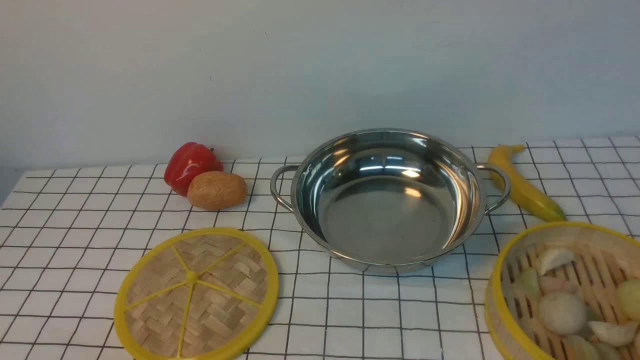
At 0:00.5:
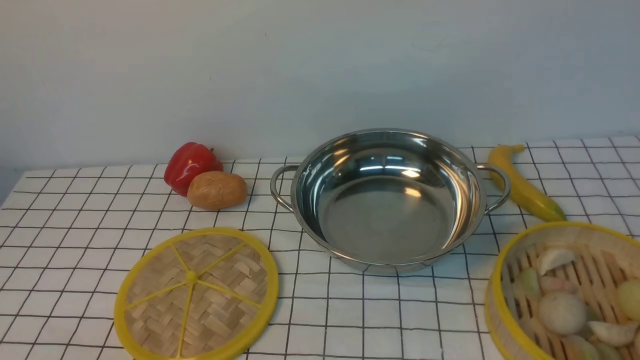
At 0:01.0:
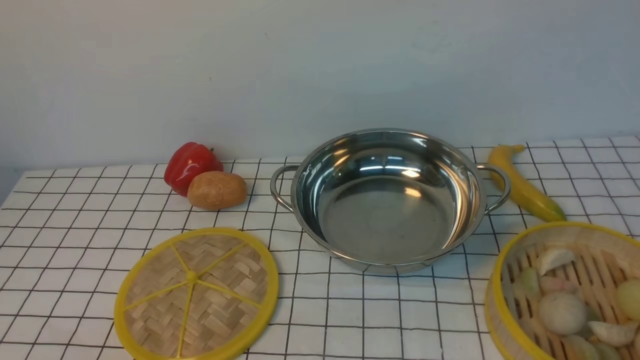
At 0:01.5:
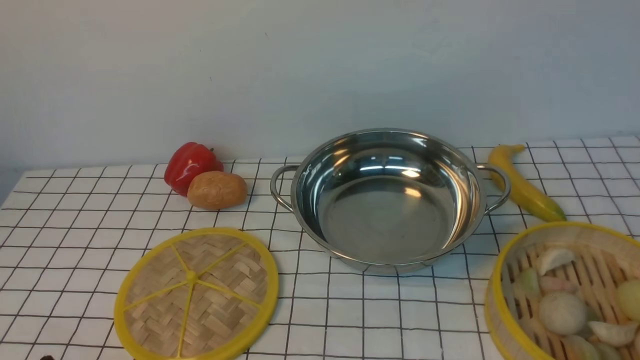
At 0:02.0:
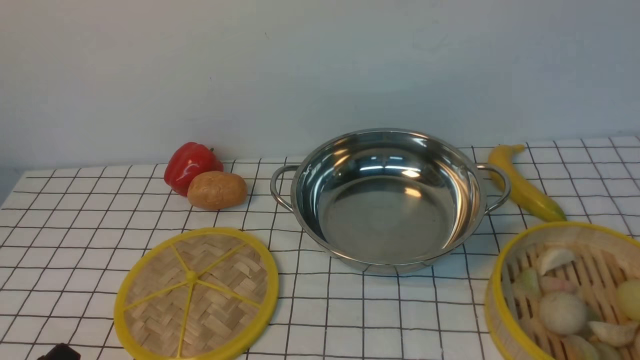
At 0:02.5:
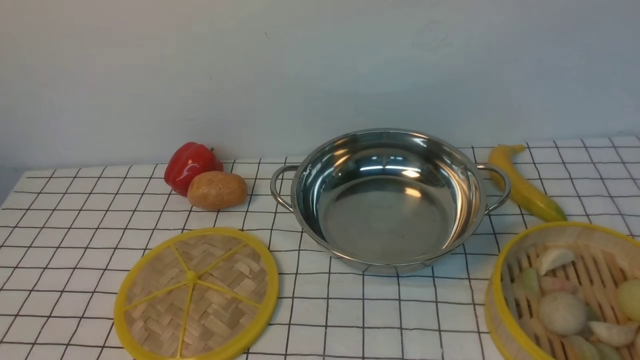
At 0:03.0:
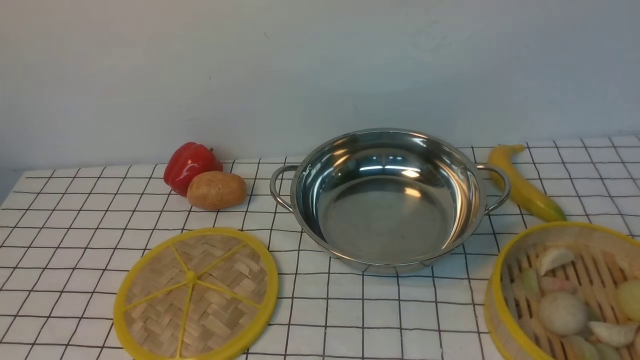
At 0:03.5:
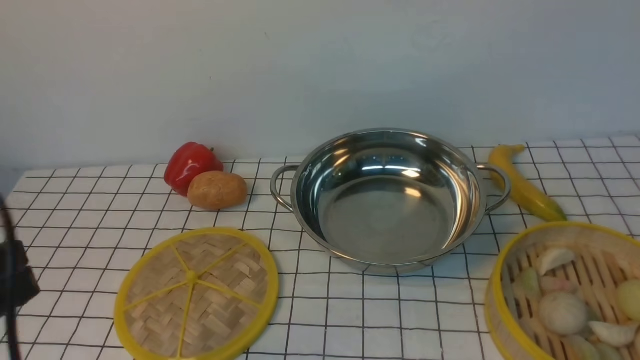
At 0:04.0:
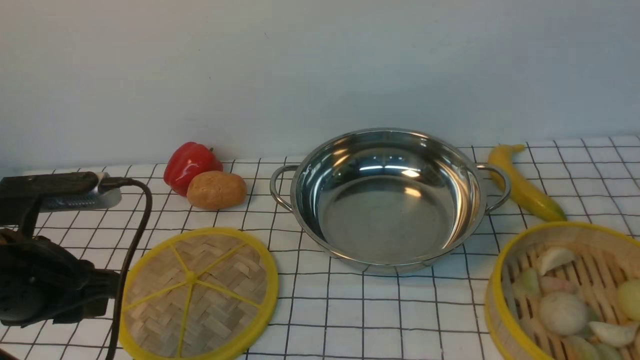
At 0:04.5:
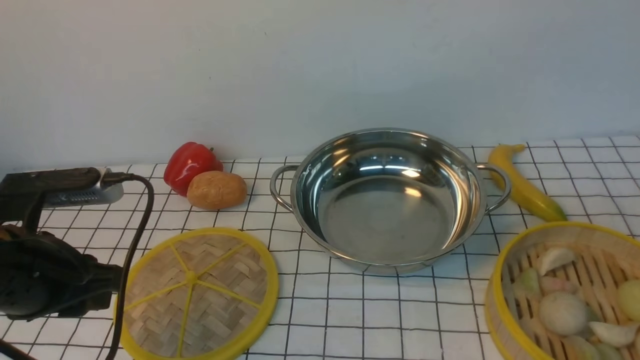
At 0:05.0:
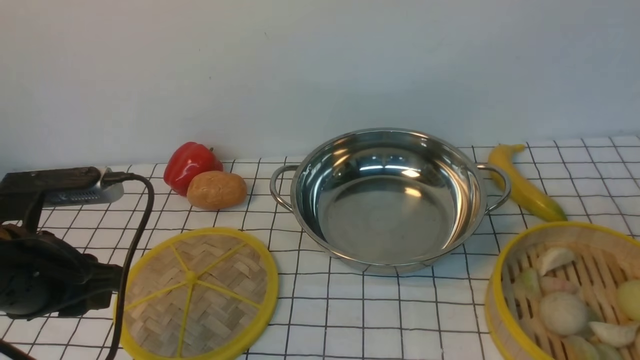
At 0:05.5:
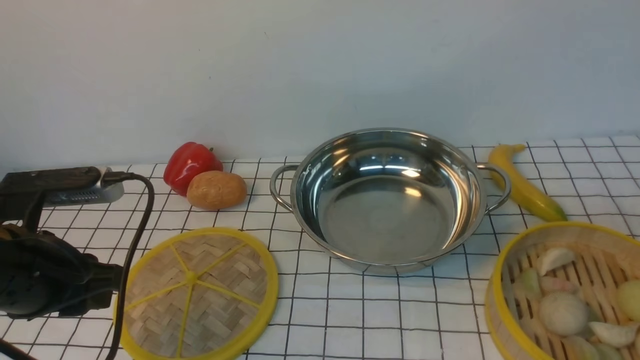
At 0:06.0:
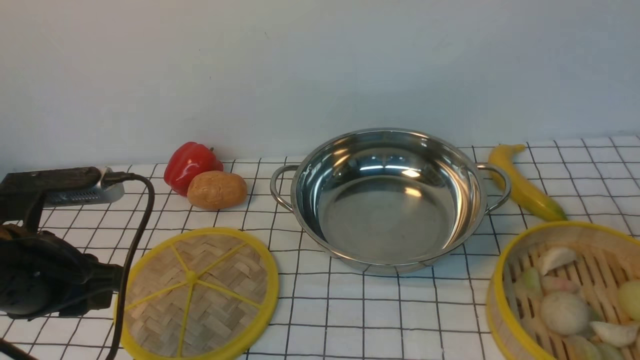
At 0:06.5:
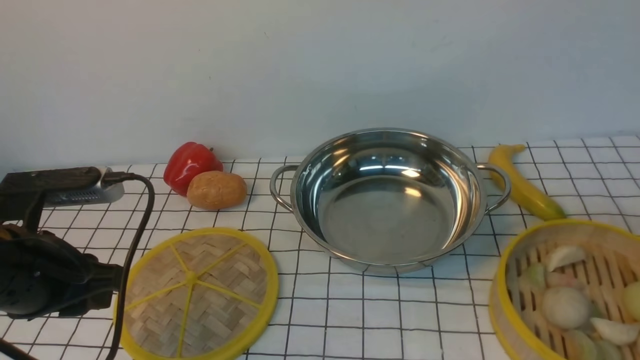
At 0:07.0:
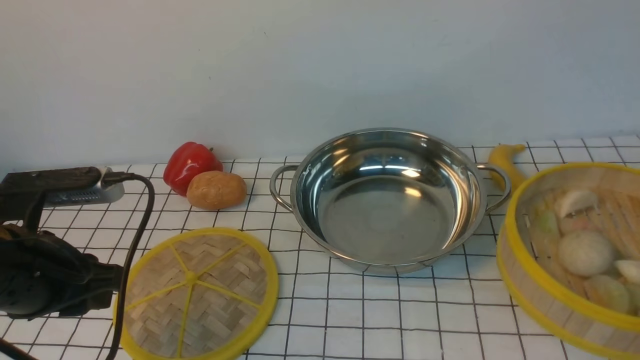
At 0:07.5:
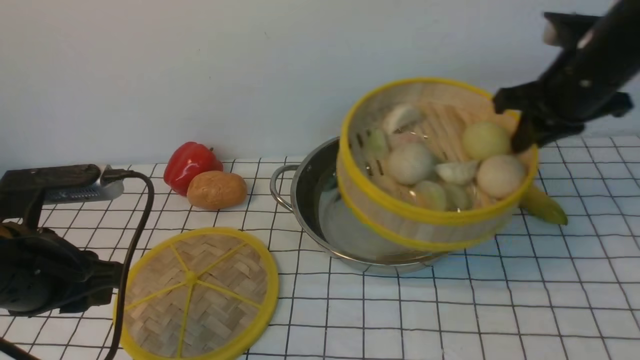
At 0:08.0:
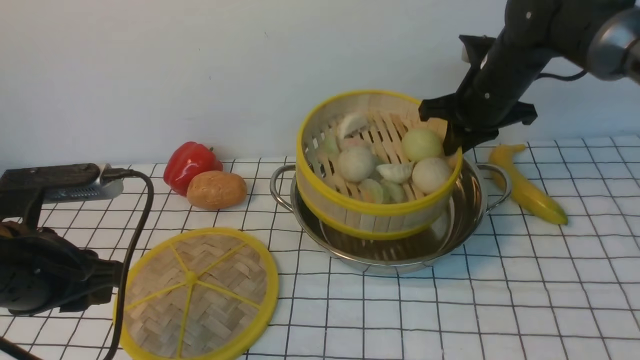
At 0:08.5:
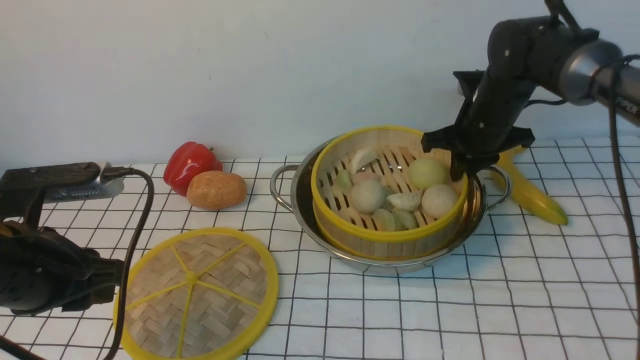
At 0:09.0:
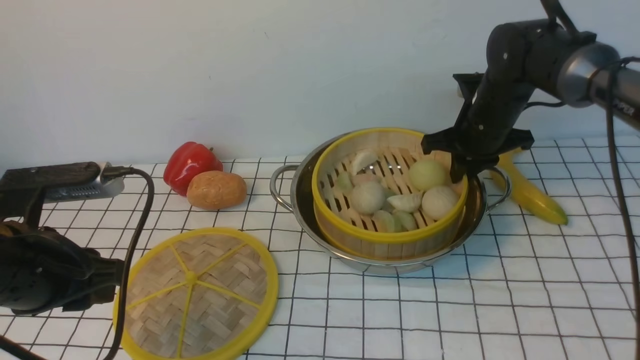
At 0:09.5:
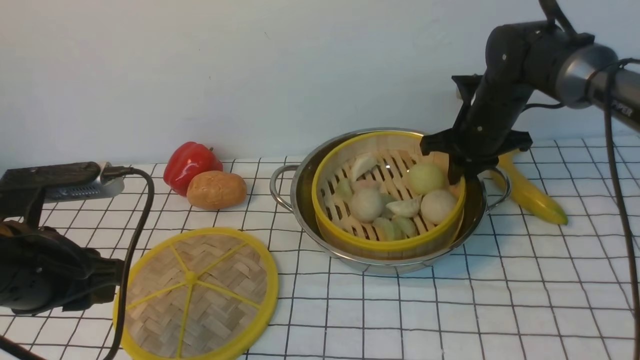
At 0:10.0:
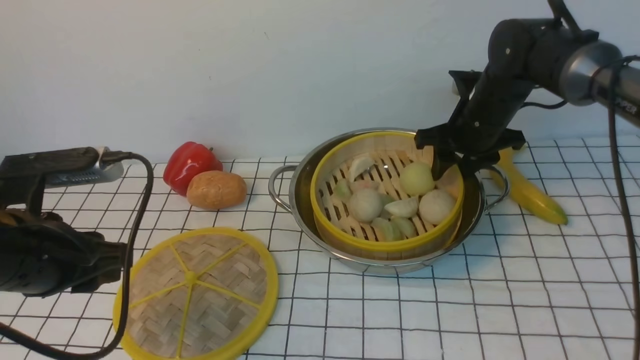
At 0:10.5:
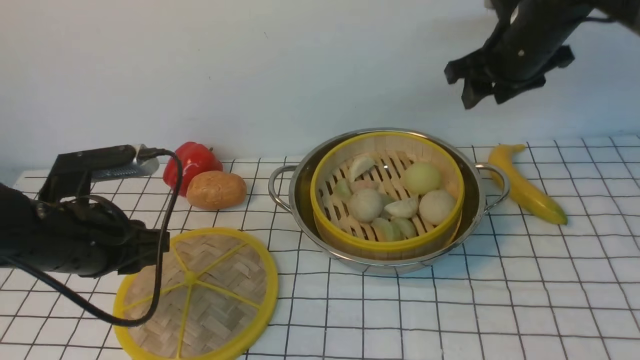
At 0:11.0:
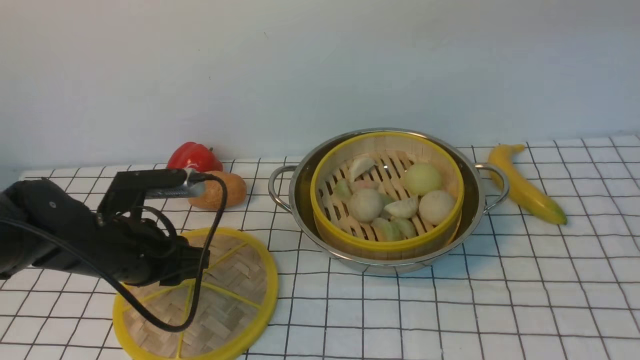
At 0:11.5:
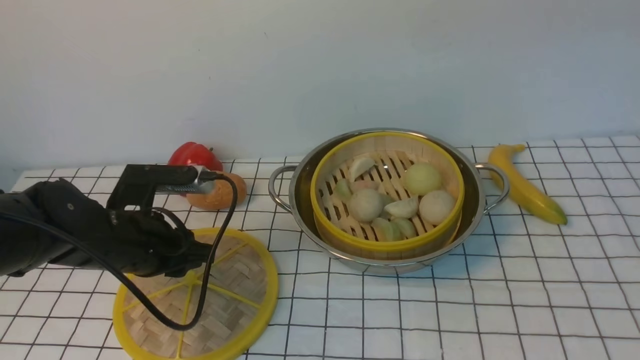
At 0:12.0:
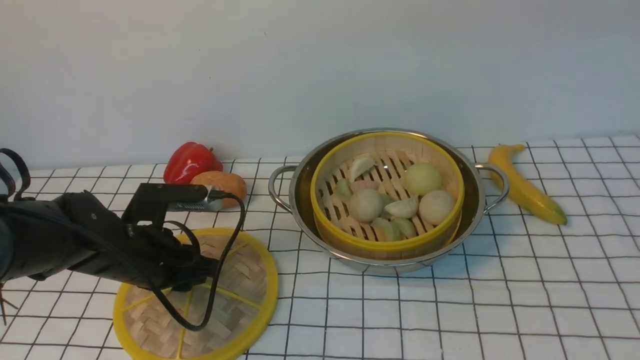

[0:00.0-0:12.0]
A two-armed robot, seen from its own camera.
Task of the whole recording: place the steamer in the pot on the white tablecloth, and put the lid on the steamer.
Step, 0:00.0 to 0:06.5: use the right arm to lift the steamer closest to it.
Step, 0:07.0 to 0:10.0: use the right arm to put the steamer into the iron steamer pot in the middle.
0:02.0 to 0:04.0: The left gripper shifts some 15 cm forward and upward.
0:06.0 to 0:08.0: The right gripper moves forward and to the left, about 30 cm.
0:08.0 to 0:10.0: The right gripper opens.
0:10.0 to 0:12.0: The right gripper is displaced upward and backward by roughly 40 cm; the left gripper goes roughly 15 cm downward and forward.

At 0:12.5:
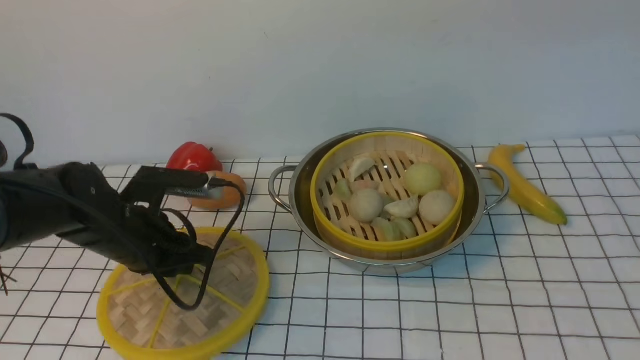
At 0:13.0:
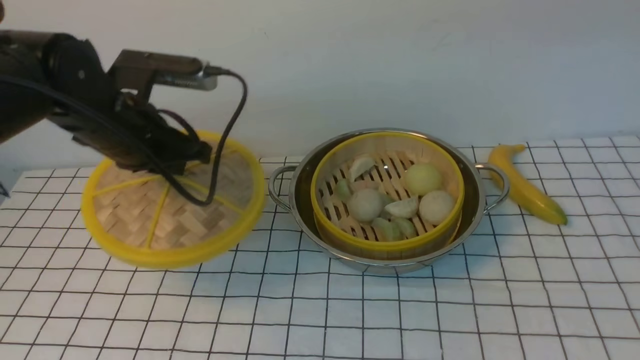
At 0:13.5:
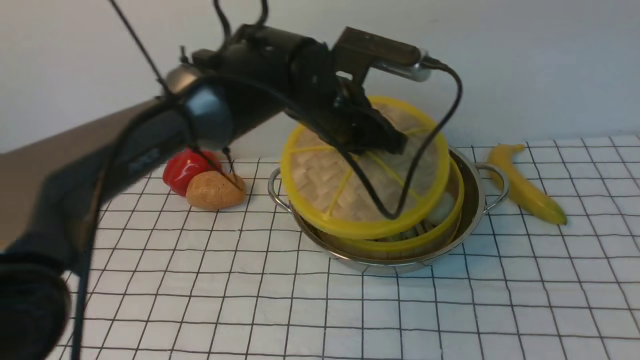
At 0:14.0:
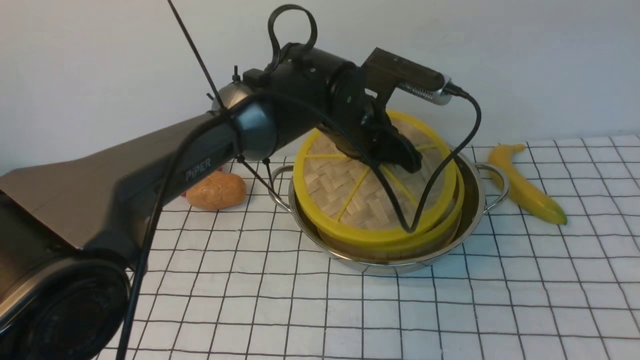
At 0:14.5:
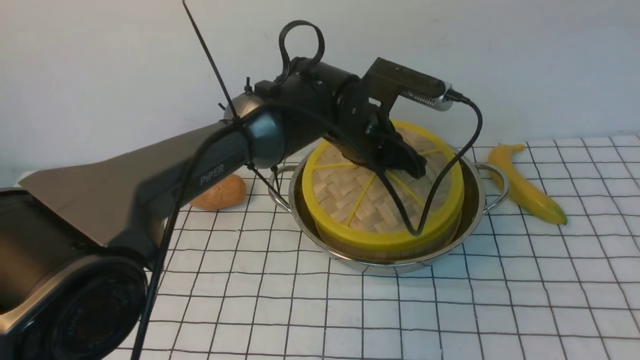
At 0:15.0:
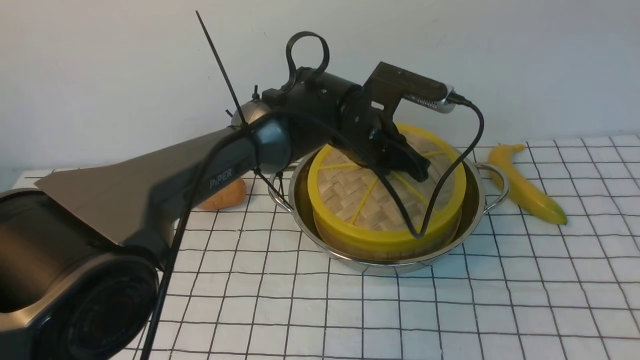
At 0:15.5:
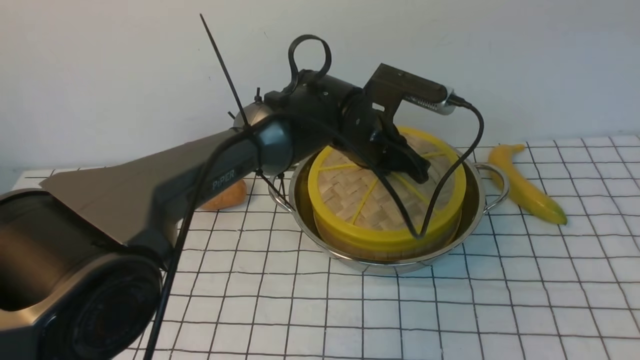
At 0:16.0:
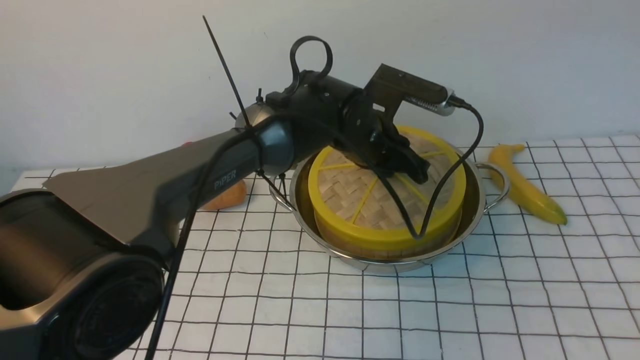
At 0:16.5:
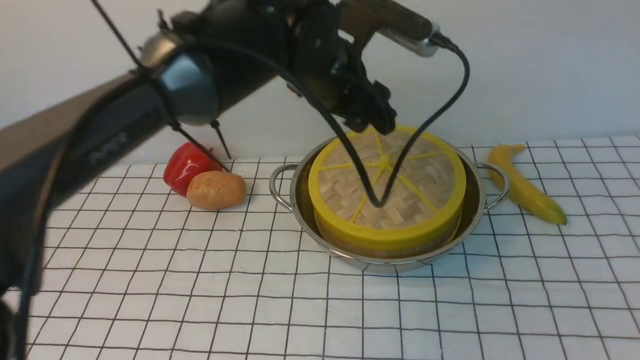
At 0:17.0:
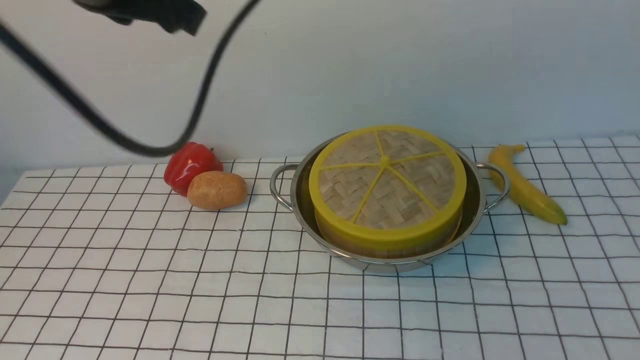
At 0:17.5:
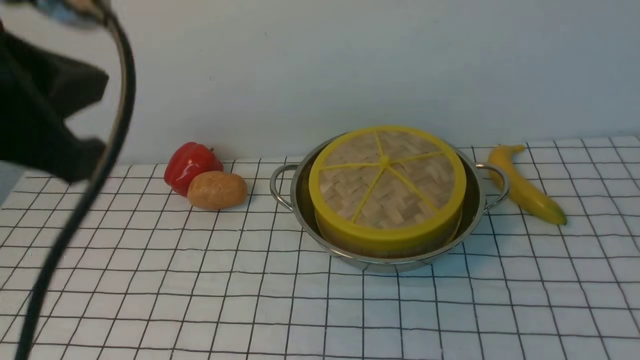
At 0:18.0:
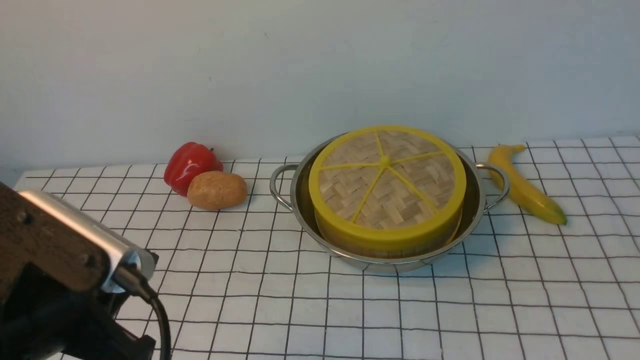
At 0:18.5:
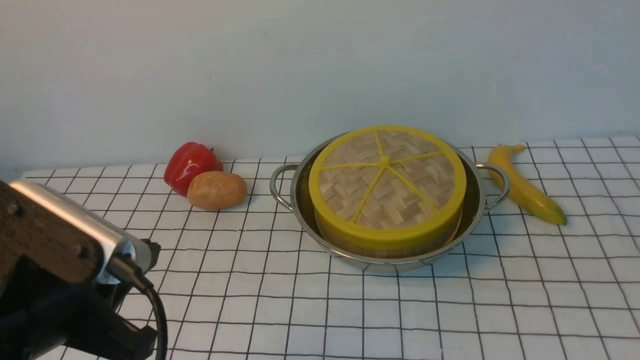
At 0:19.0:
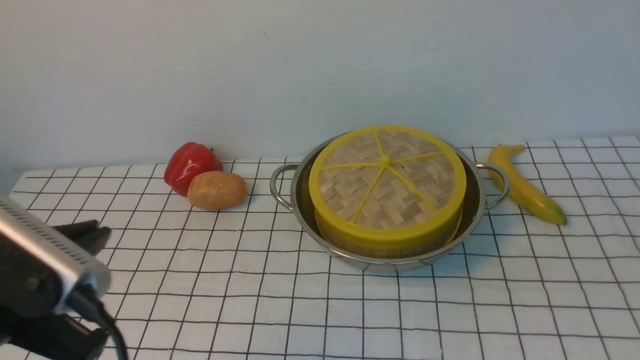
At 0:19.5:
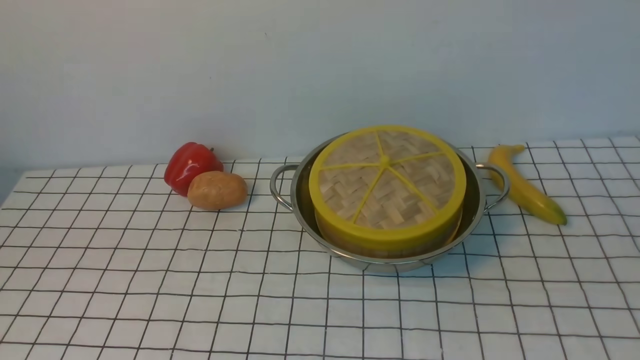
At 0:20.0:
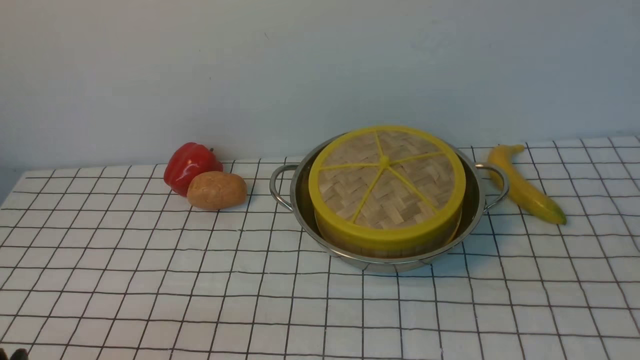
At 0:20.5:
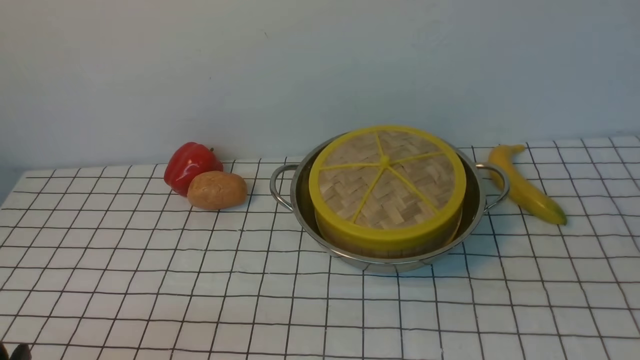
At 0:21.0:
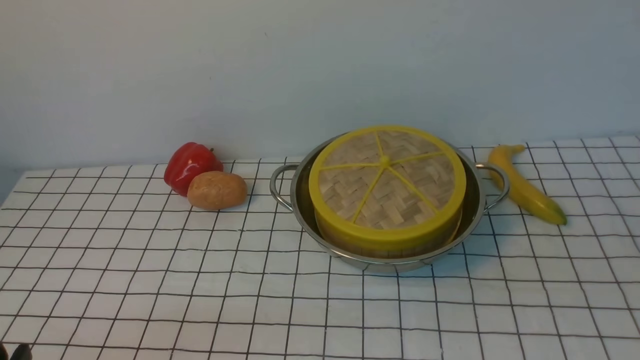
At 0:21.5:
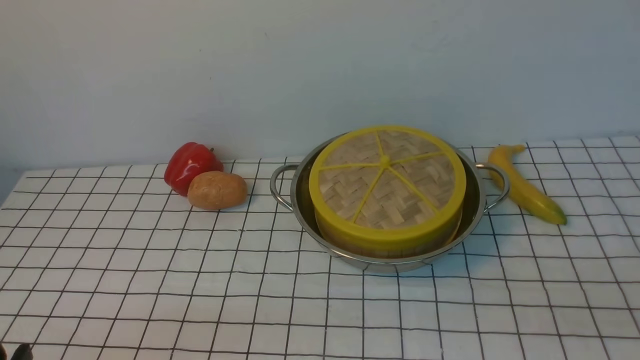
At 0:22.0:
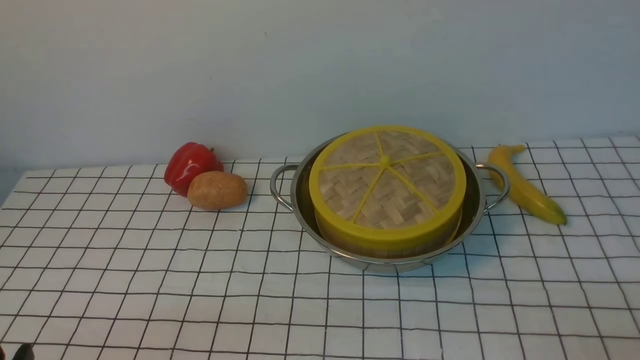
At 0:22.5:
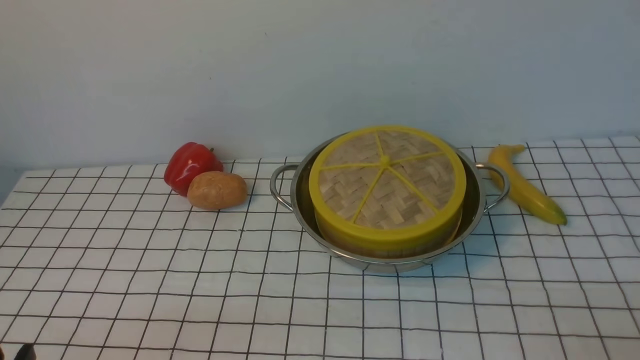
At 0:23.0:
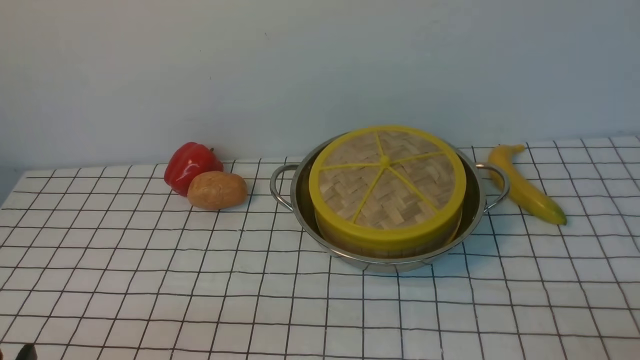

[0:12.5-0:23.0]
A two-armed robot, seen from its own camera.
Task of the whole recording: place the steamer in the pot on the white tablecloth, and put the lid on the steamer.
Step, 0:13.0 to 0:16.5: use the left arm to place the steamer lid on the steamer.
0:12.5 to 0:14.5: The left gripper moves to the right, some 25 cm.
0:14.5 to 0:16.5: The left gripper goes about 10 cm upward, and opens up.
0:16.5 to 0:19.0: The left gripper heads backward and to the left, covering some 35 cm, and closes up; the right gripper moves downward and backward, roughly 30 cm, and closes its fingers.
0:19.0 to 0:21.0: The left gripper shifts approximately 15 cm downward and backward.
